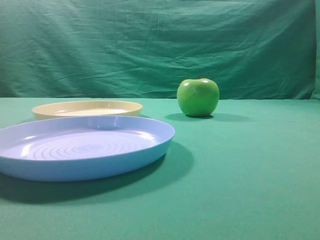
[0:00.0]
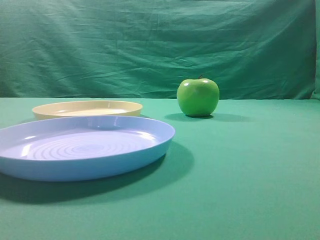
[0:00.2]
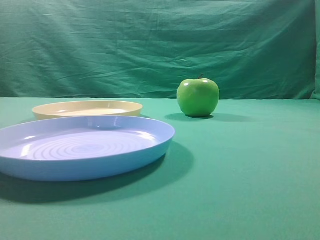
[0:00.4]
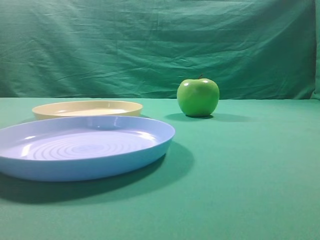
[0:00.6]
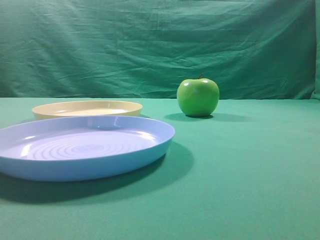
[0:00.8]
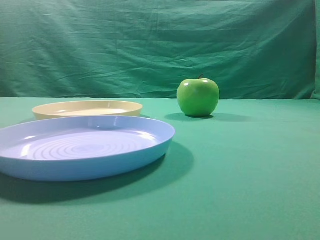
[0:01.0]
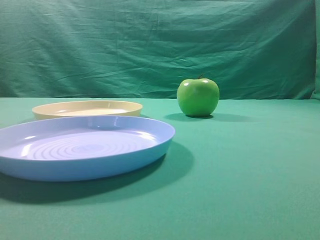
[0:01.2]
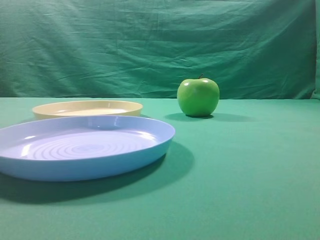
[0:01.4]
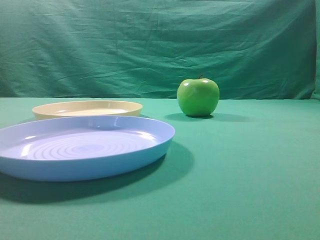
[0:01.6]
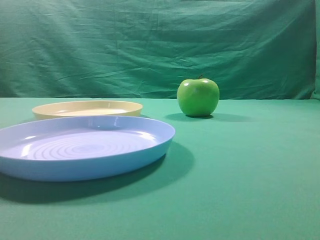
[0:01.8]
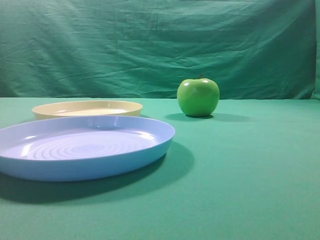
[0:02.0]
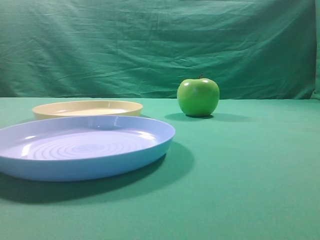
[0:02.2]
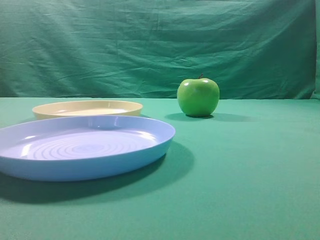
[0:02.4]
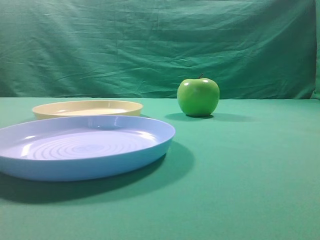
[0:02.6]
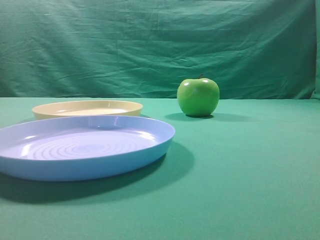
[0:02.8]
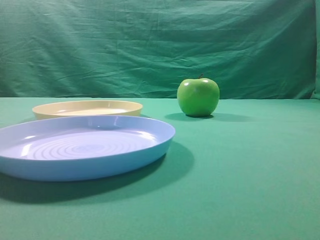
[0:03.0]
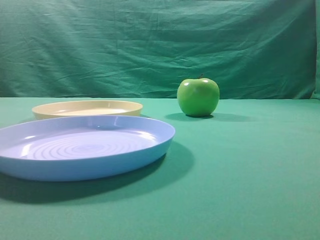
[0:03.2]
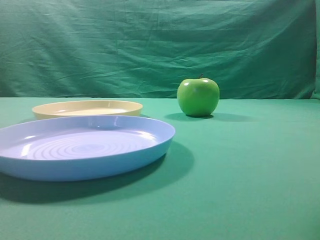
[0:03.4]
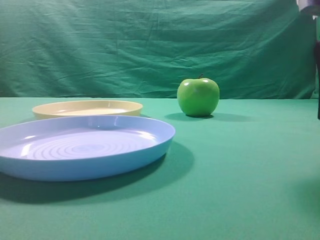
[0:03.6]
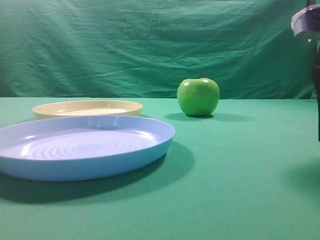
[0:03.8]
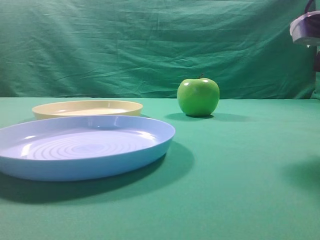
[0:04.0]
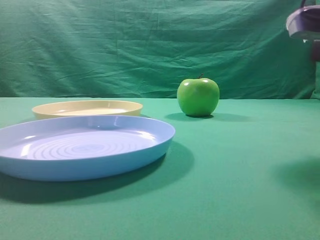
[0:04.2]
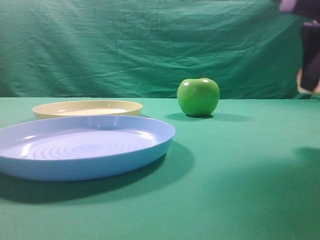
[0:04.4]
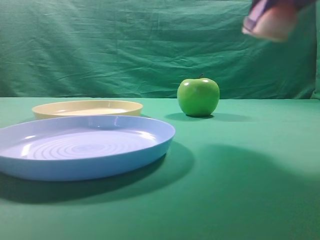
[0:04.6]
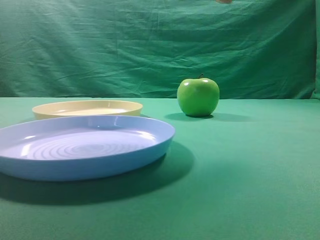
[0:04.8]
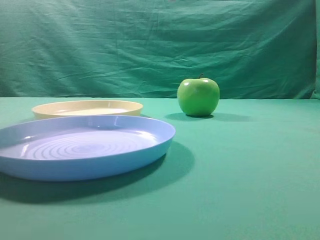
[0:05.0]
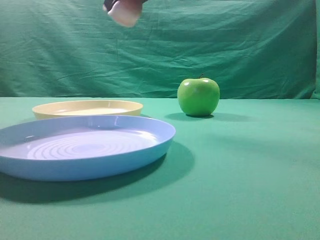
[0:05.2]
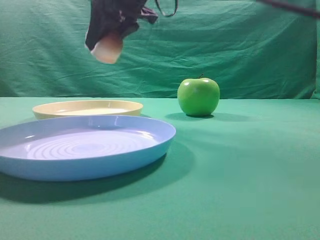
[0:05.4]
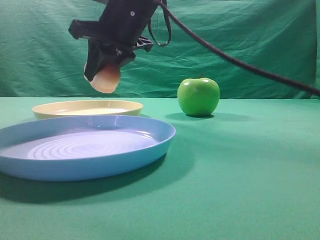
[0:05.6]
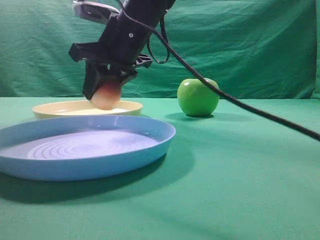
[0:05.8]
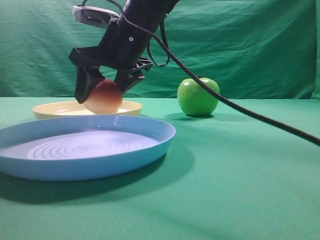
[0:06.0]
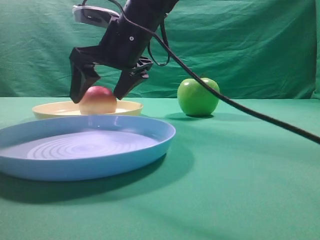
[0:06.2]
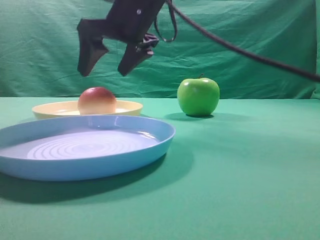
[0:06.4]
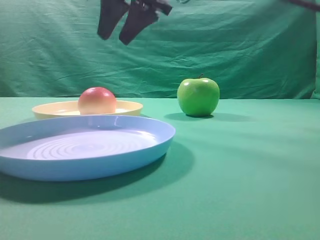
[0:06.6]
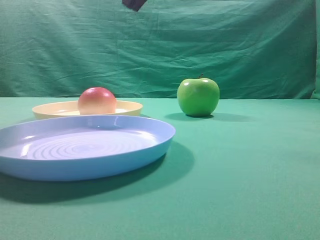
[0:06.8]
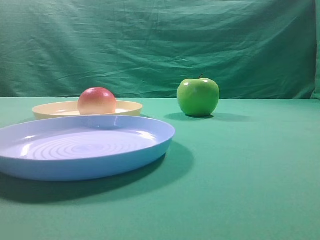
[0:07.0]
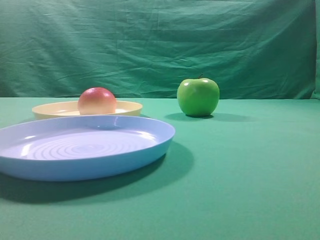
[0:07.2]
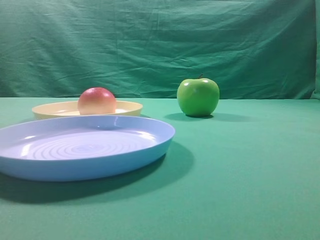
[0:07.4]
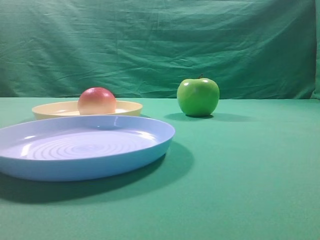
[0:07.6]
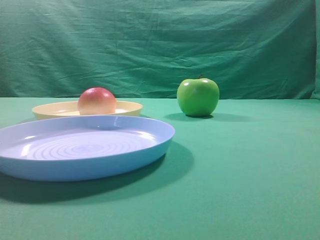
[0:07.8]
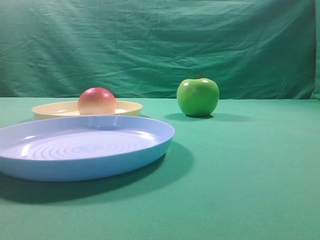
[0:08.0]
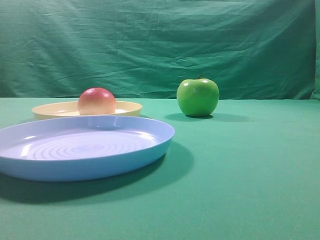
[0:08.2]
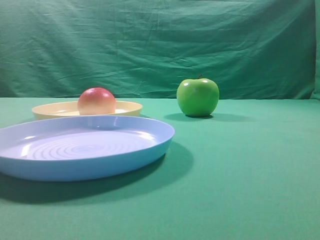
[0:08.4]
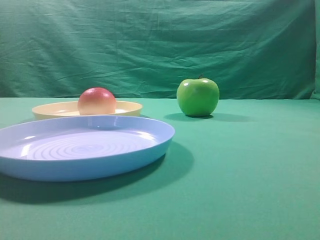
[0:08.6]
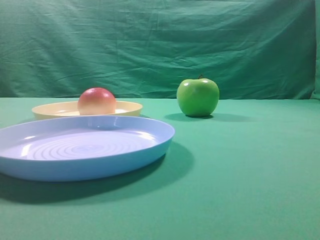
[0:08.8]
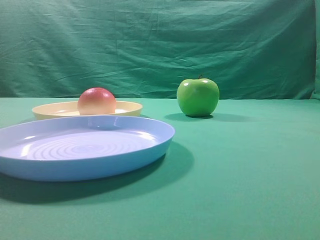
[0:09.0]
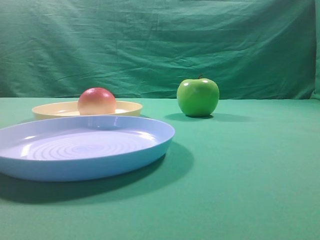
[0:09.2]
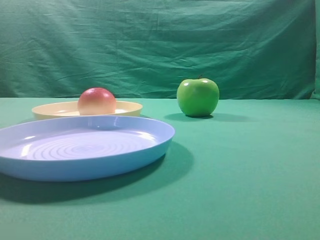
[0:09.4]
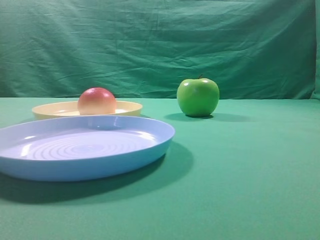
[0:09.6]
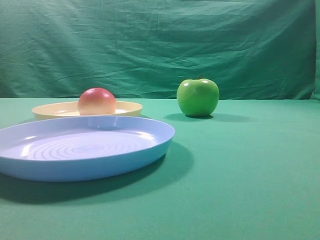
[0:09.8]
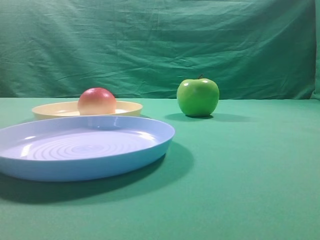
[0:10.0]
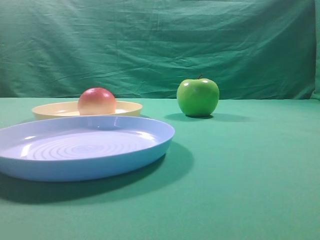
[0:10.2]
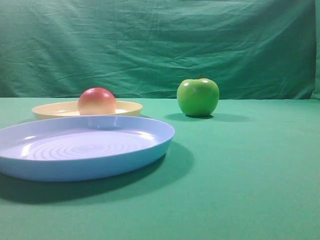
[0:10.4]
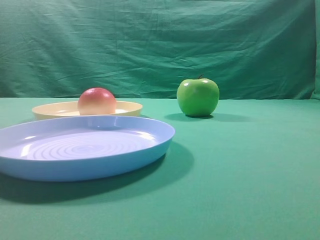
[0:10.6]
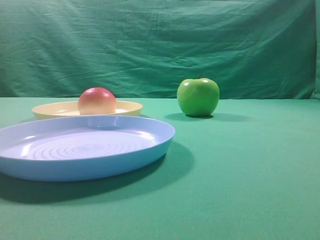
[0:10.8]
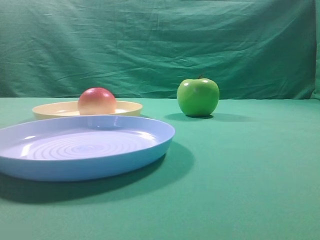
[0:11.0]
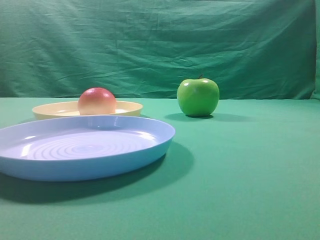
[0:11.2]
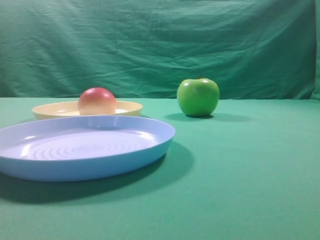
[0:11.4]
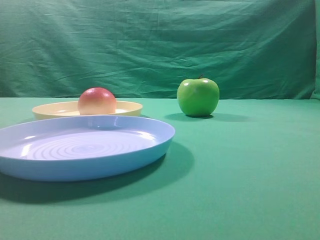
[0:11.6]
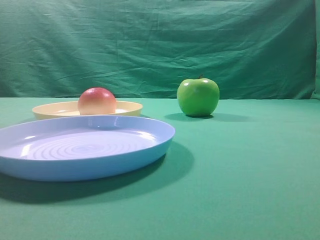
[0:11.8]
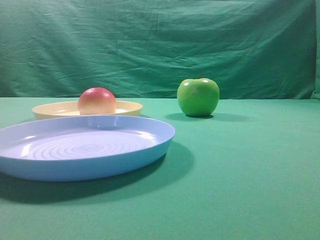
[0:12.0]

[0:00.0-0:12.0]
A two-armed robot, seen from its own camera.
Step, 0:04.4 to 0:06.4: Place the picked object on the yellow plate.

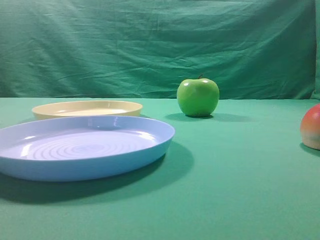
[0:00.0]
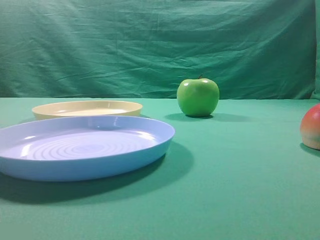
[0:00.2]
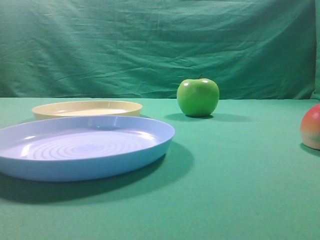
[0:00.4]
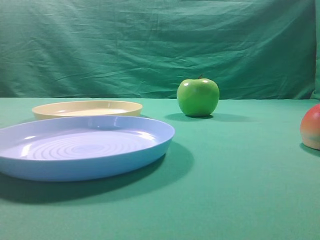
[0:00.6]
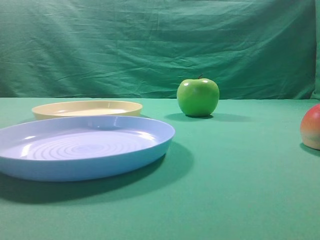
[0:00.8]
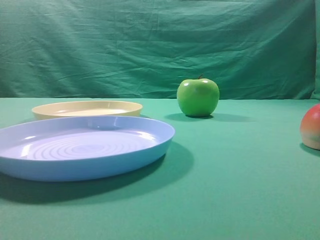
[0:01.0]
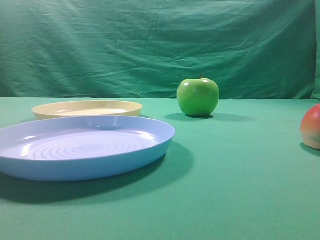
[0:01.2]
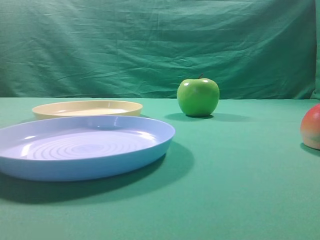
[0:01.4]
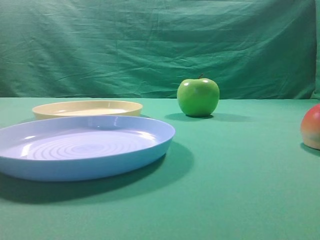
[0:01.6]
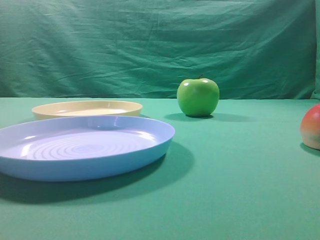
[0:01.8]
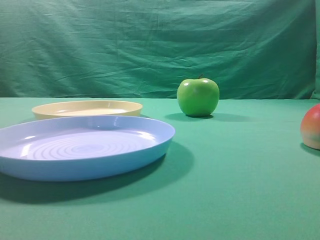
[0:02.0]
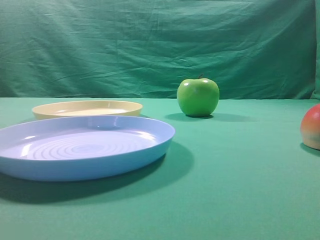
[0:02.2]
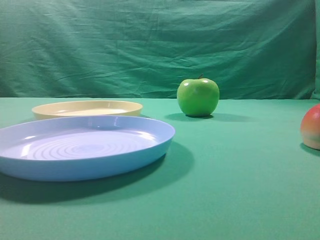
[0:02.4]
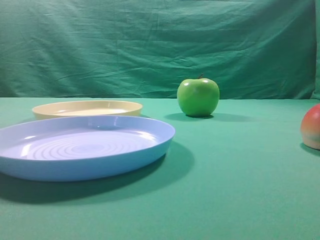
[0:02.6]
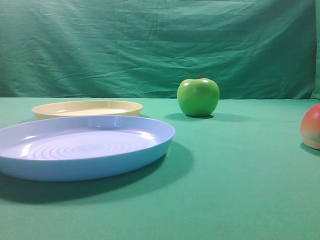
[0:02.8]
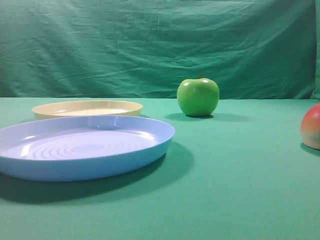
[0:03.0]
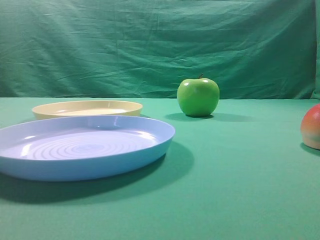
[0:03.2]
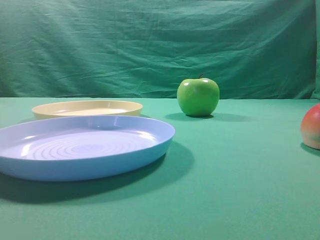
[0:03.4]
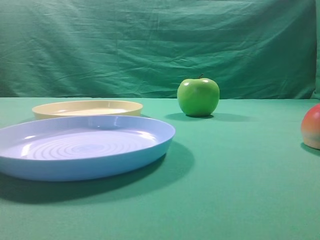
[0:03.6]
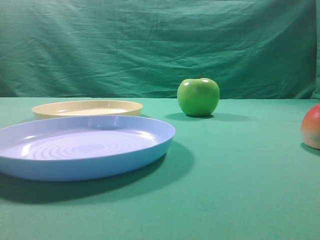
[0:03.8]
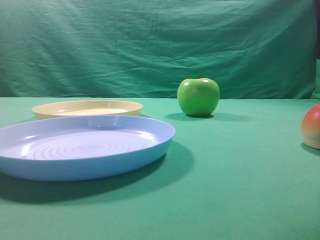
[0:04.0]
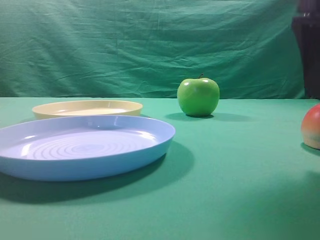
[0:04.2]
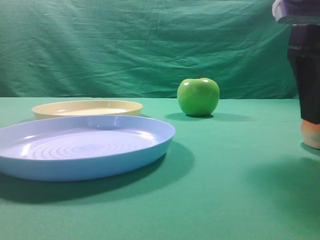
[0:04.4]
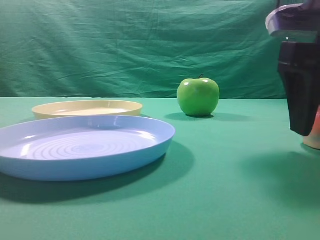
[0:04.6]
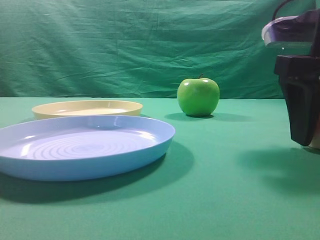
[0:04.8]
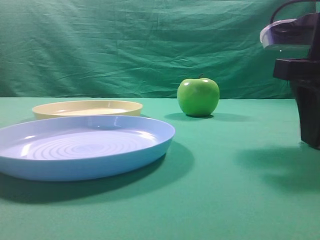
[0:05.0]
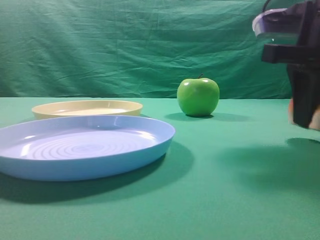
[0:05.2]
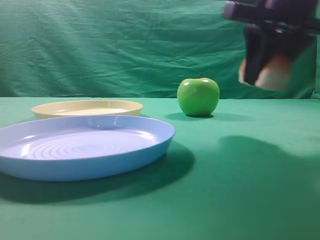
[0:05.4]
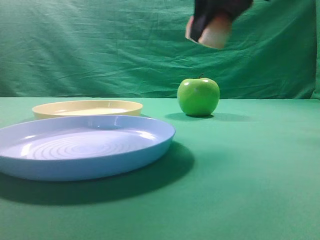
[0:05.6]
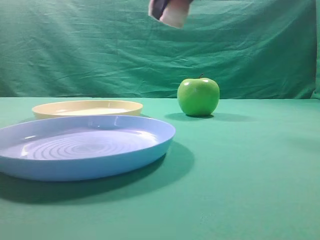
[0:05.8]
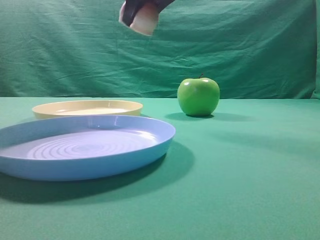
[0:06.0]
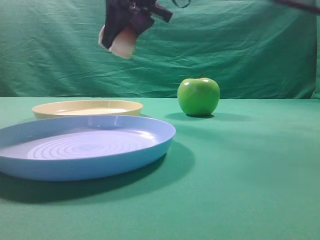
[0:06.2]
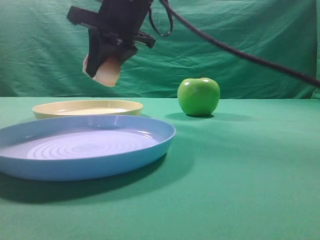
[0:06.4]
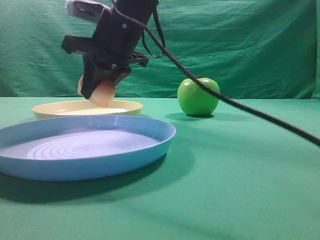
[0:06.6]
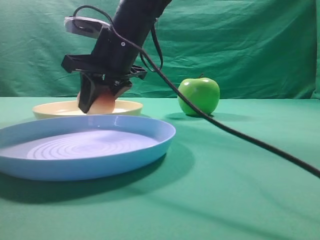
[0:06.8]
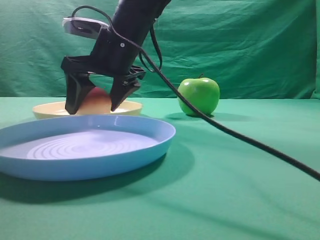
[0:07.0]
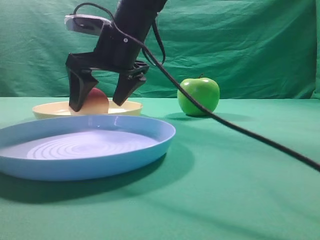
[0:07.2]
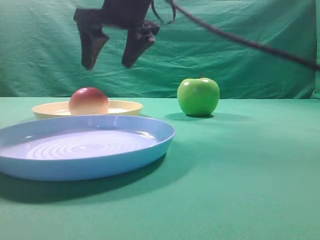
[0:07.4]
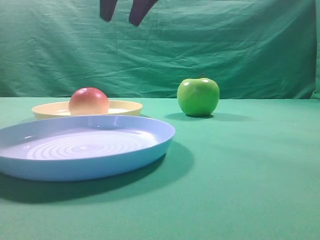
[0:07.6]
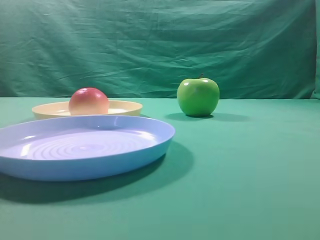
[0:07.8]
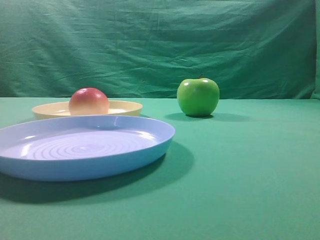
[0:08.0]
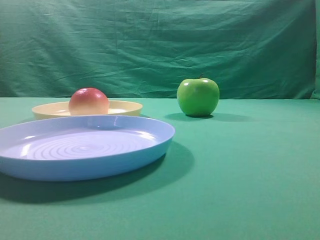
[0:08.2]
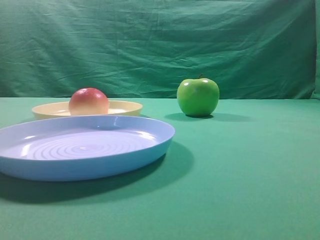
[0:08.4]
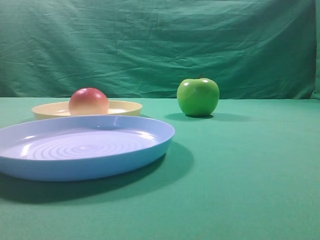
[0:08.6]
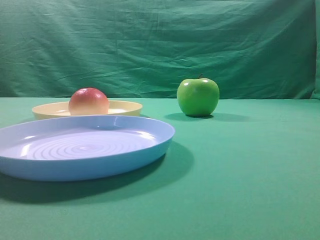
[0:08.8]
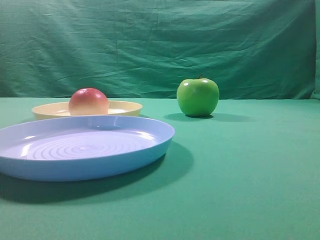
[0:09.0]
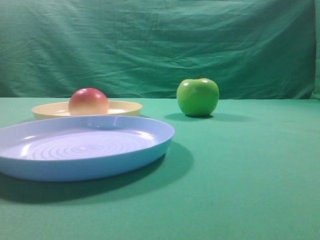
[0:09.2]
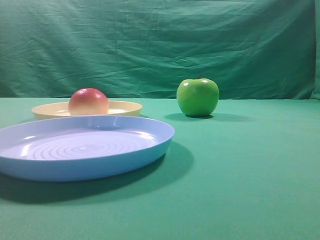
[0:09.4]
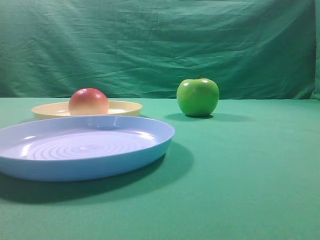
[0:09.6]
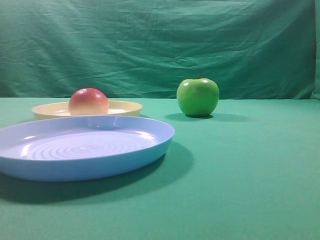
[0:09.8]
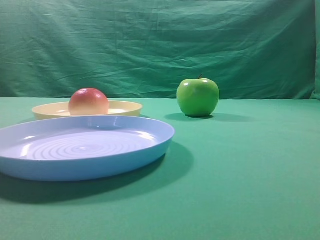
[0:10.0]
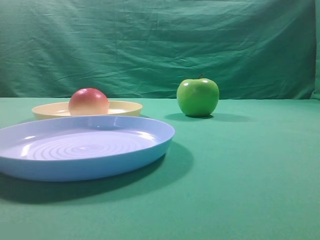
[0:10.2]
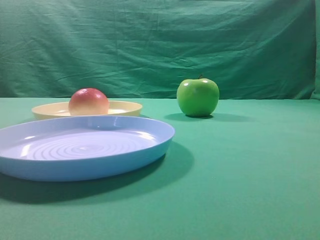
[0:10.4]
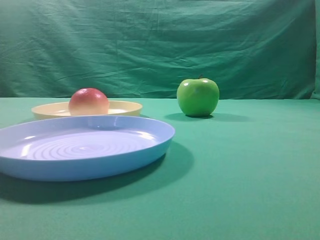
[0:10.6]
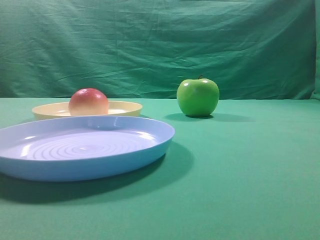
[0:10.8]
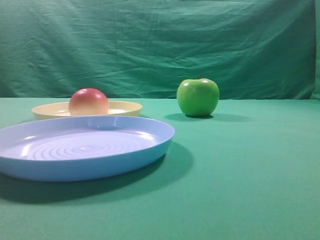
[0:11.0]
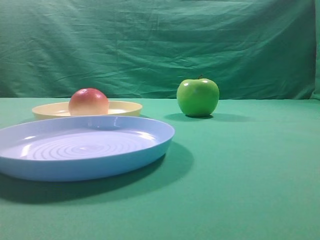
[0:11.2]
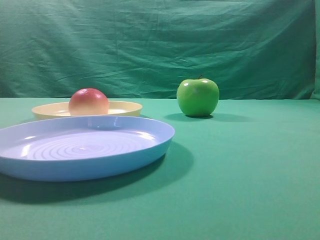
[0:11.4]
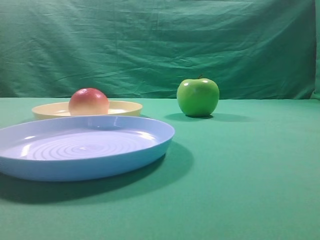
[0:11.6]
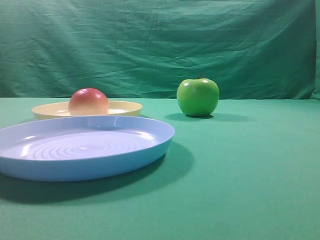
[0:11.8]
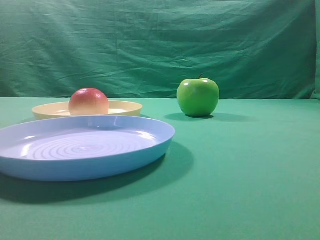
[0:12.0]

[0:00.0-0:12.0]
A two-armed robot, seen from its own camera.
Step, 0:05.4 to 0:07.2: Place the picked object on the yellow plate.
